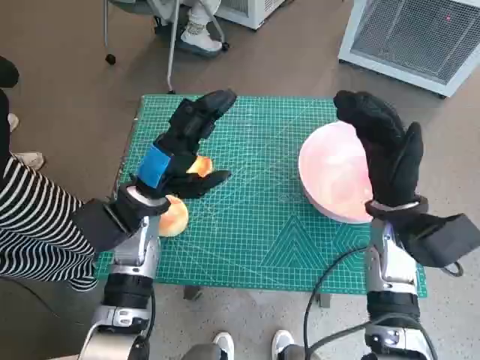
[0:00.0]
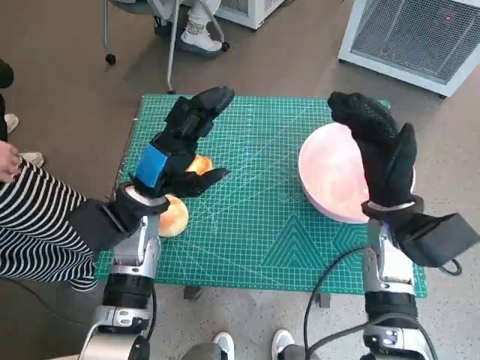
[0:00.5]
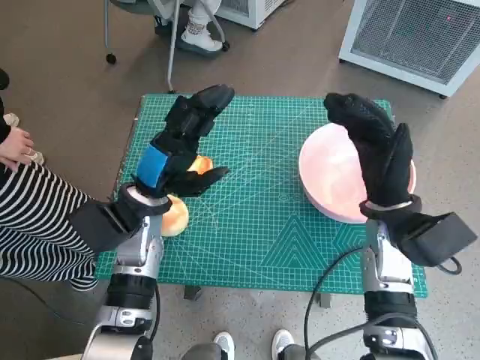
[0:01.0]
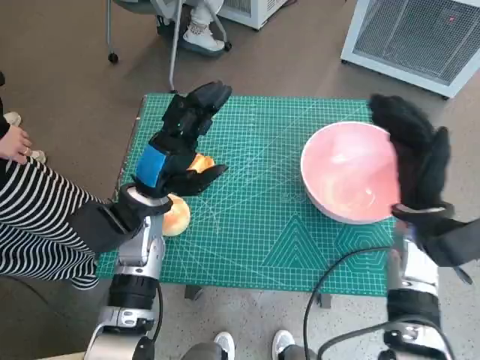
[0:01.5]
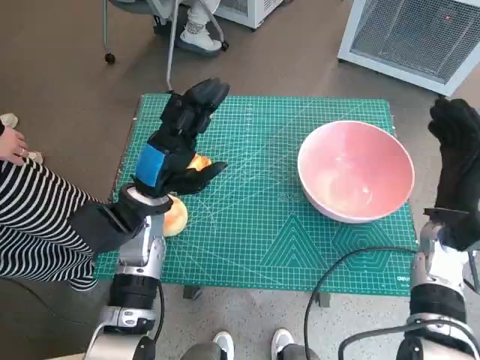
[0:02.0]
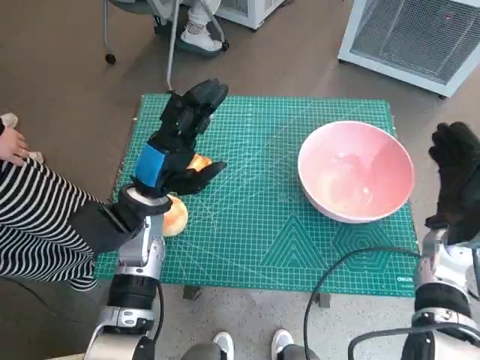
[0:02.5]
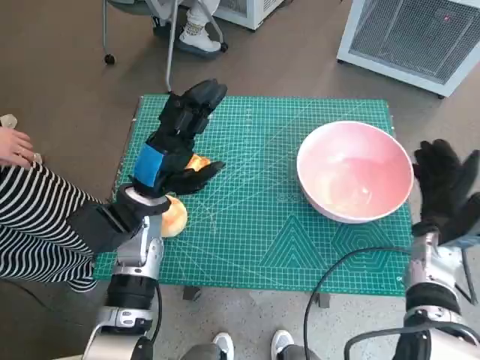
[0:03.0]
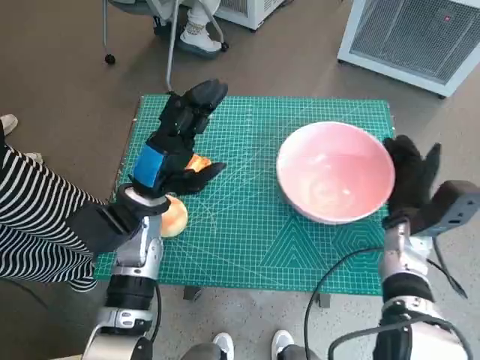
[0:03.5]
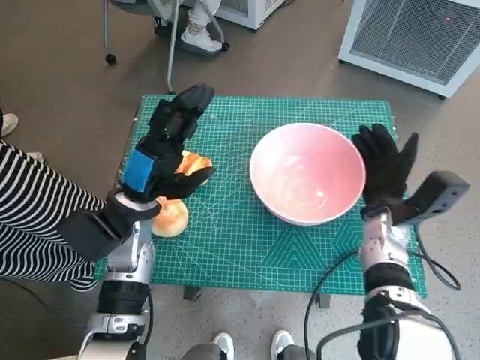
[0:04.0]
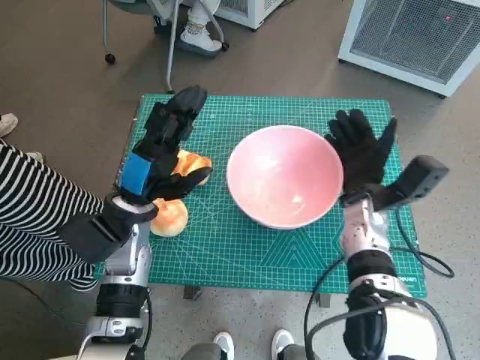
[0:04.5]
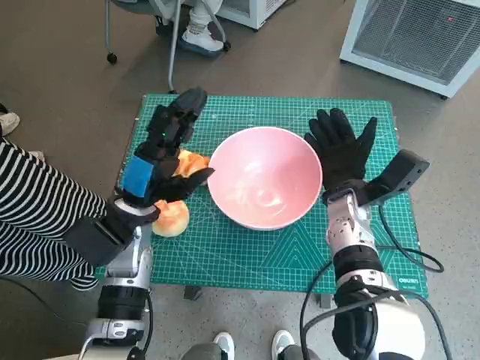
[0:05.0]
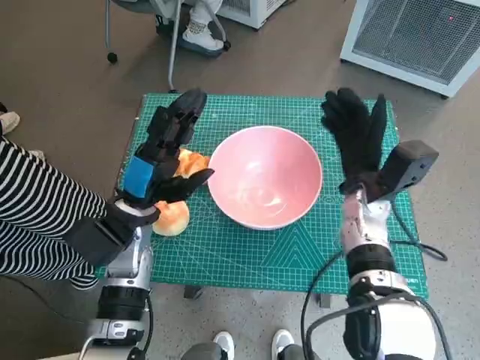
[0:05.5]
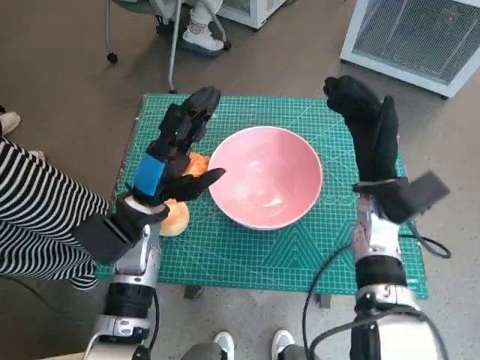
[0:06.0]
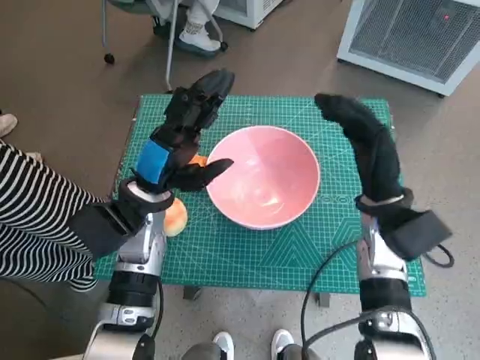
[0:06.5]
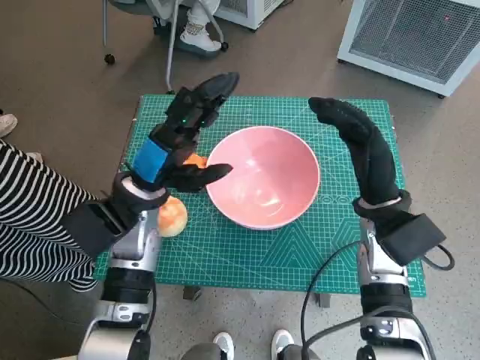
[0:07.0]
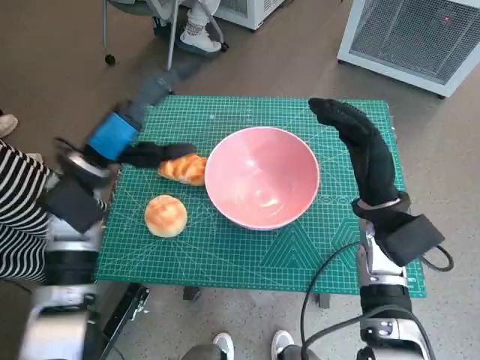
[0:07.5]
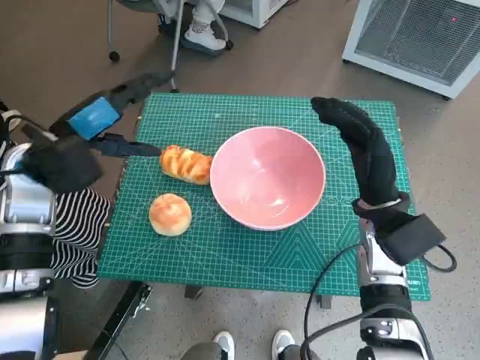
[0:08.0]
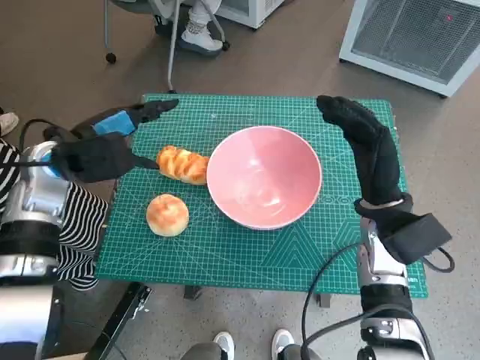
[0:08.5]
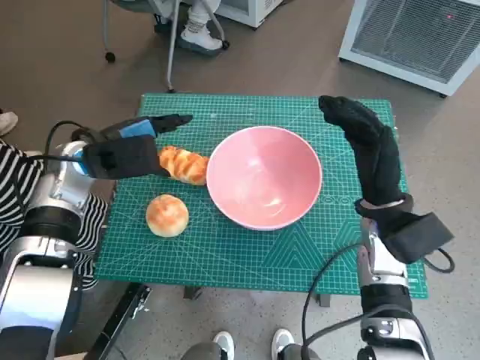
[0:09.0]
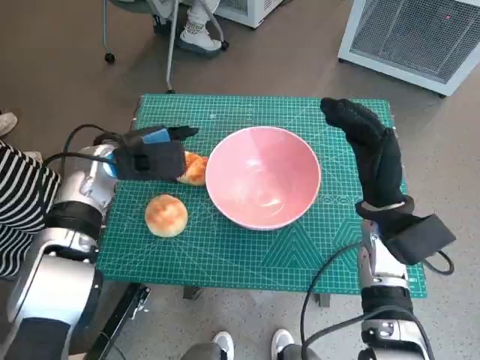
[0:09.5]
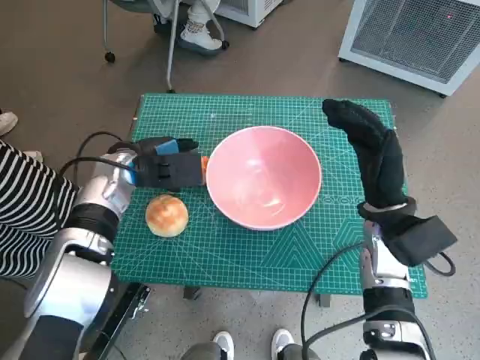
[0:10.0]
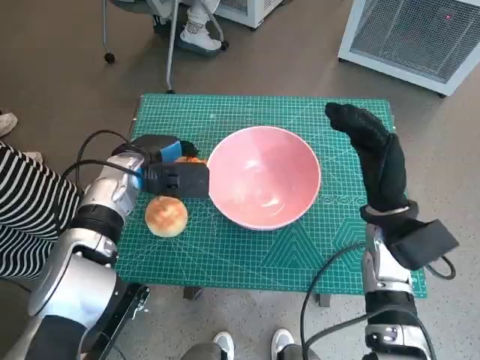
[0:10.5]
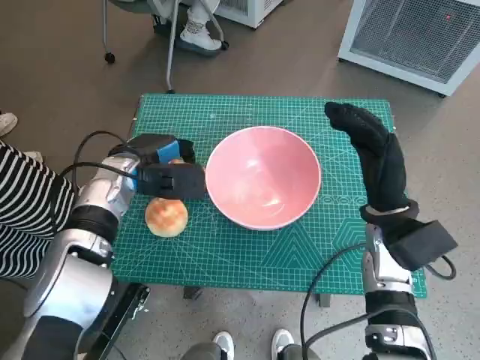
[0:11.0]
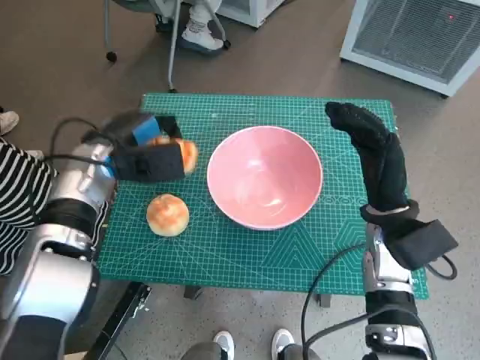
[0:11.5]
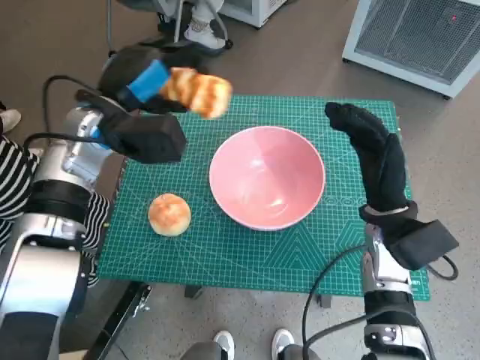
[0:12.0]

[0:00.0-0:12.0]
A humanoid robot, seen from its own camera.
Task of the whole recording: Push the bowl into the center of the table and put the bread into the bowl.
Step, 0:00.0 to 0:05.0: Move the pink bowl to the center of table with right hand.
Step, 0:06.0 to 0:10.5: Grasp the long bread with left hand.
0:02.0 to 0:04.0: The right hand travels to the left by roughly 5 cm.
0:04.0 to 0:06.0: The right hand heads upward, covering some 5 cm.
0:06.0 to 0:08.0: The left hand goes about 15 cm upward and to the left.
0:08.0 to 0:10.0: The left hand moves downward and to the right, roughly 10 cm.
0:10.0 to 0:12.0: The left hand heads upward, covering about 10 cm.

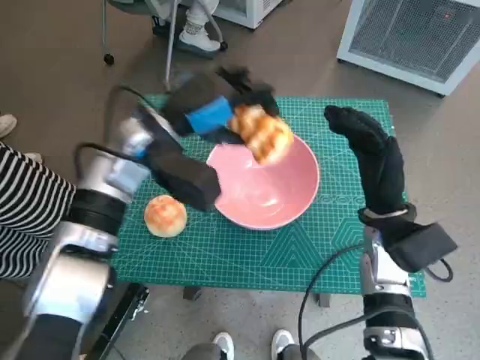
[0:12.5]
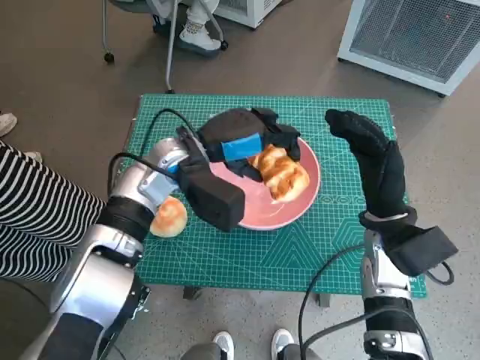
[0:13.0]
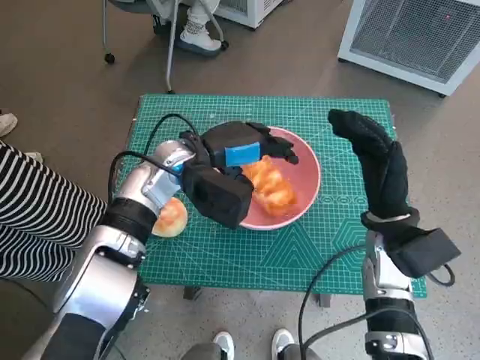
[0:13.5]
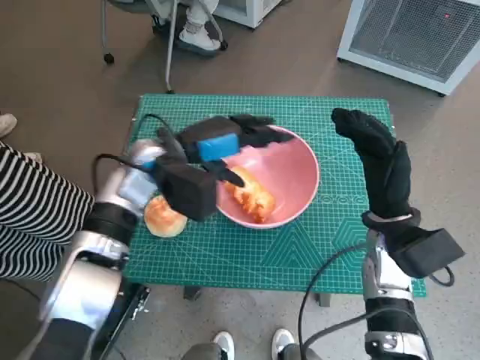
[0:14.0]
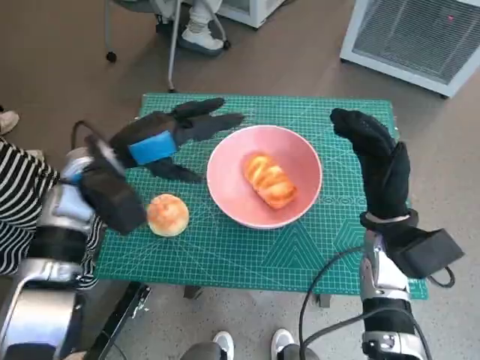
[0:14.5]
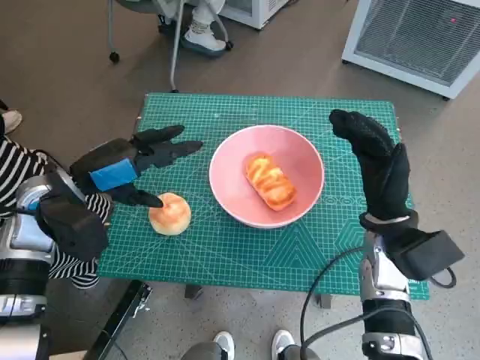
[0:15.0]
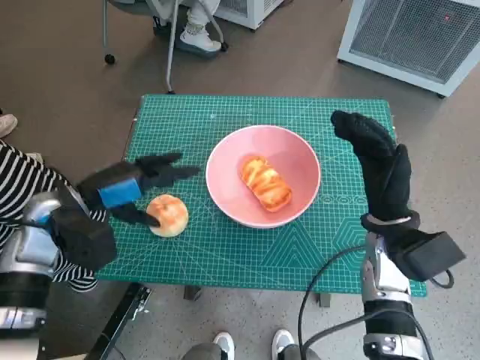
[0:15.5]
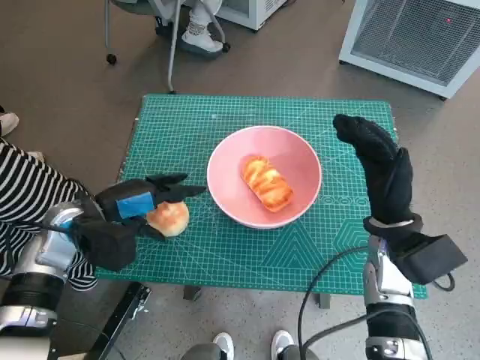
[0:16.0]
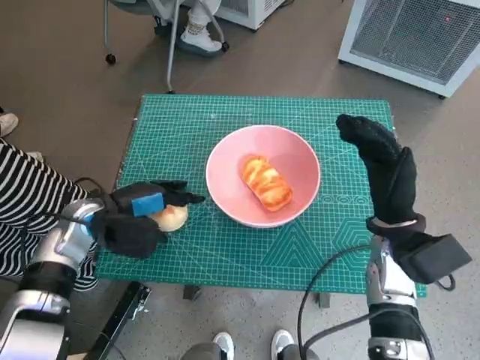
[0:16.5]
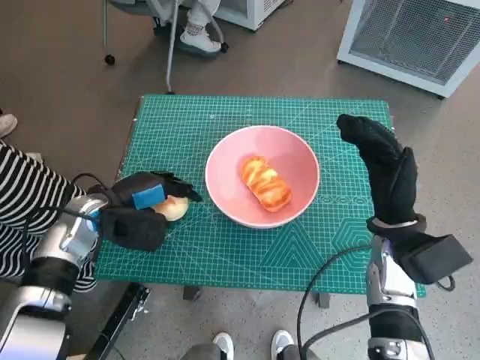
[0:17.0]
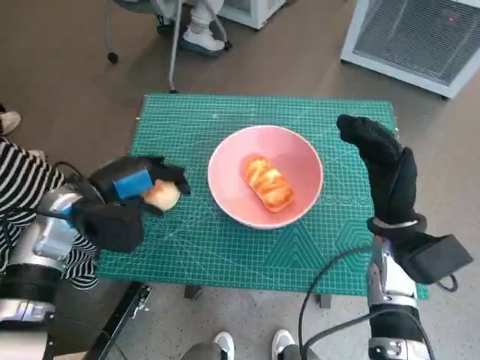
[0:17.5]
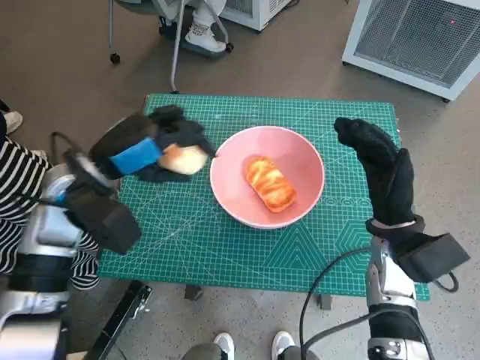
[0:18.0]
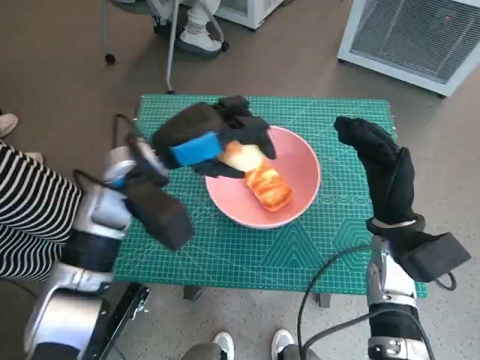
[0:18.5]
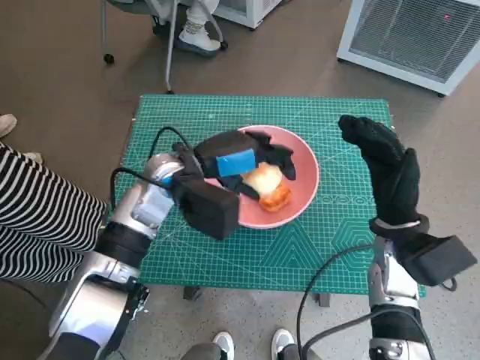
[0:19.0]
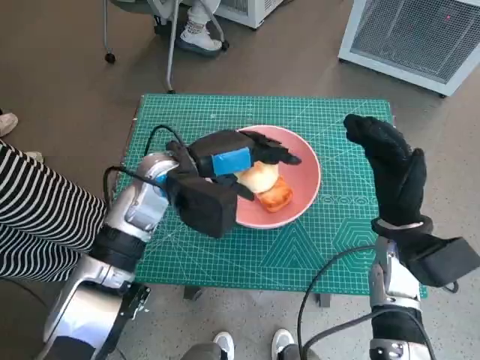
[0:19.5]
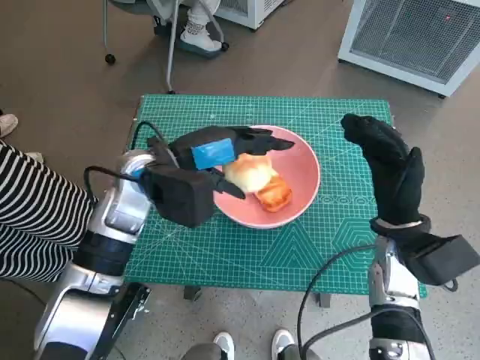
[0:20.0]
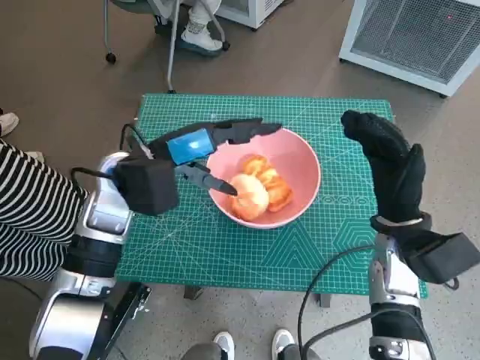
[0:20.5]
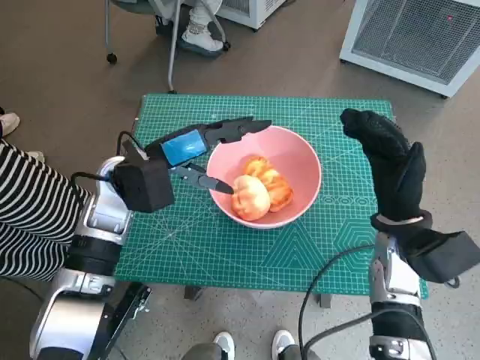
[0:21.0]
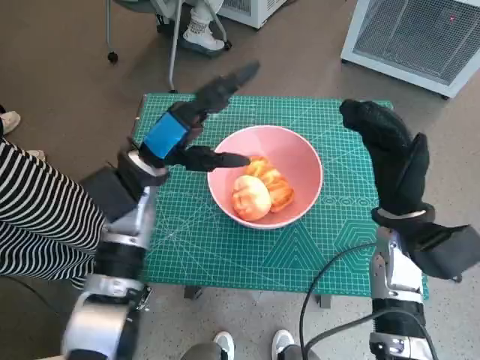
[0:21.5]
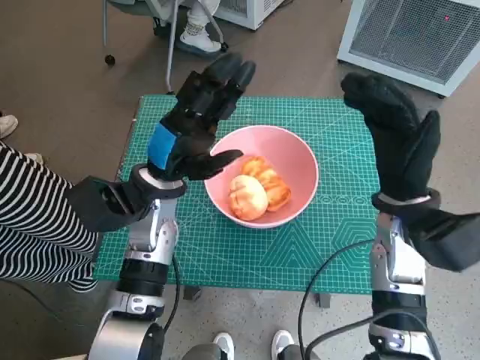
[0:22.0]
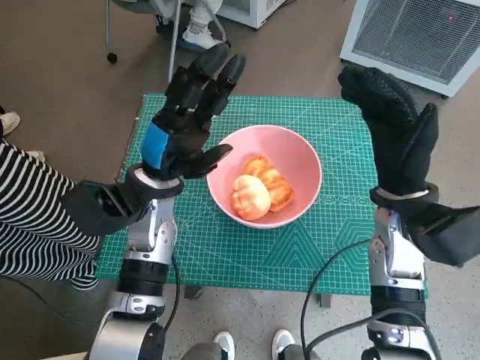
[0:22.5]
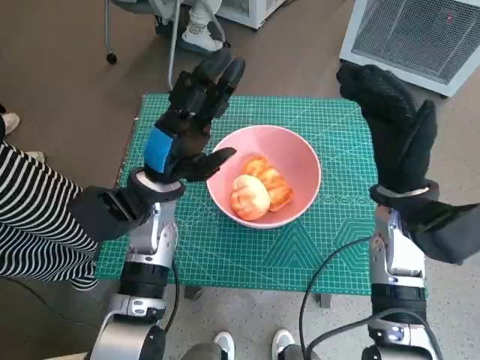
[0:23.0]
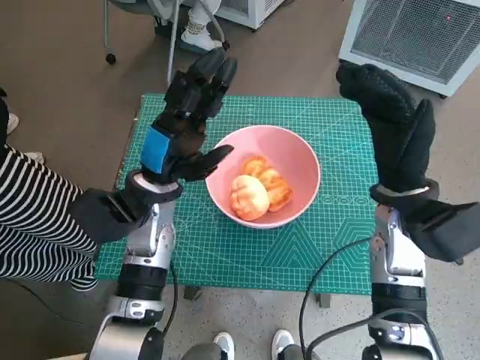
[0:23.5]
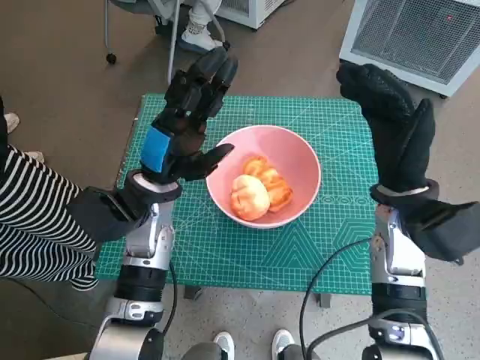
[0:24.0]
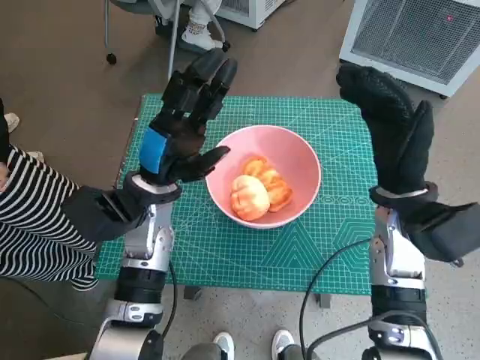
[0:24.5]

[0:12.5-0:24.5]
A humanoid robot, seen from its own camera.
Task of the whole recording: Push the bowl into the center of the table and put the bread into the bowl.
Step, 0:14.5 to 0:17.0: Grasp the round bread with left hand.
Step, 0:17.5 to 0:20.5: Place the round bread in pink bowl with left hand.
0:12.5 to 0:14.5: The left hand moves to the left, roughly 5 cm.
0:14.5 to 0:16.5: The left hand travels downward by some 10 cm.
0:16.5 to 0:18.5: The left hand shifts roughly 15 cm upward and to the right.
0:20.5 to 0:22.5: The right hand travels upward by approximately 5 cm.
0:22.5 to 0:24.5: The hands stay close to where they were, moving slightly.

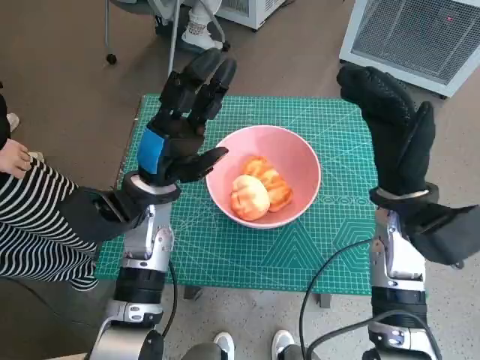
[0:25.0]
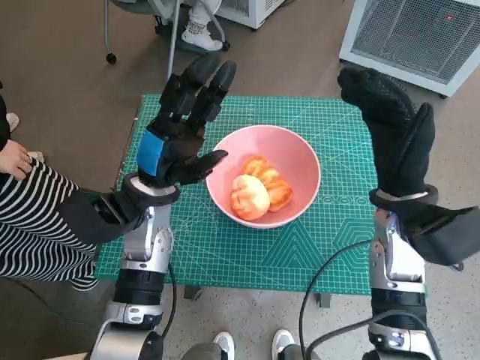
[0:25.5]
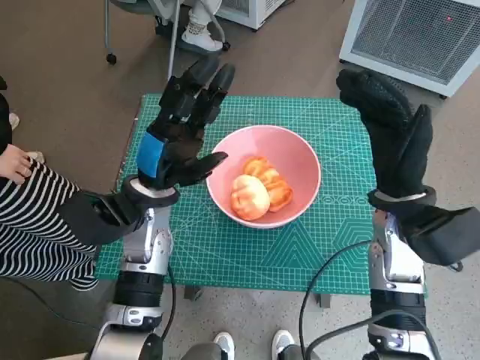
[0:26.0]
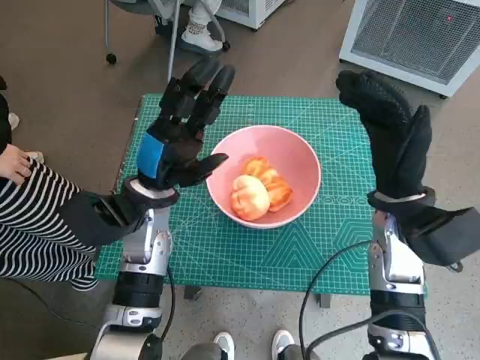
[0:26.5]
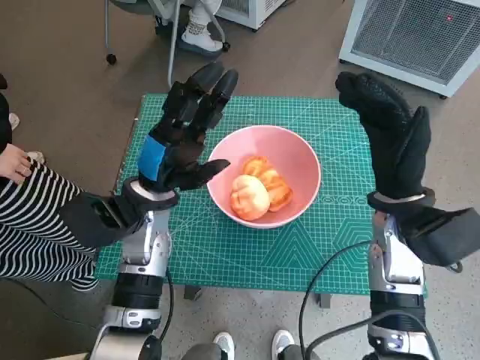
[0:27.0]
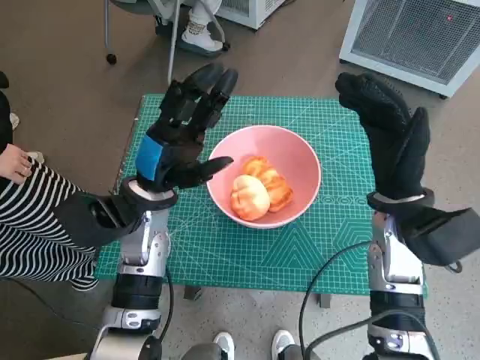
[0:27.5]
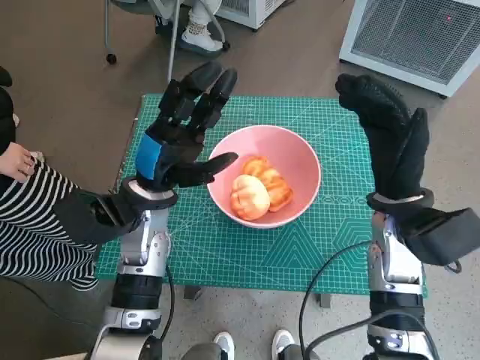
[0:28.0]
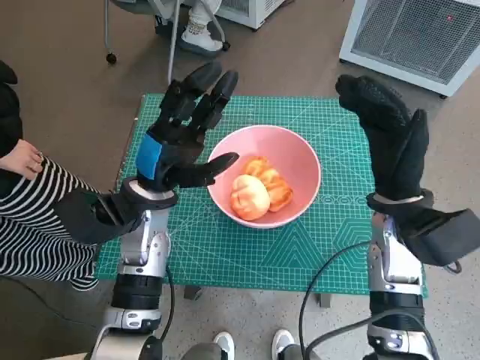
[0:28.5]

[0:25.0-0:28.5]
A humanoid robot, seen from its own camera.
Task of the whole recording: Push the bowl into the center of the table and put the bread into the bowl.
0:25.0 to 0:28.5: Neither hand changes place.
